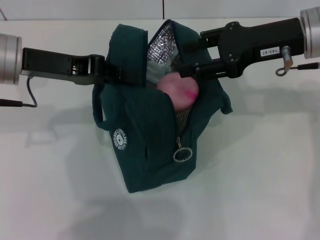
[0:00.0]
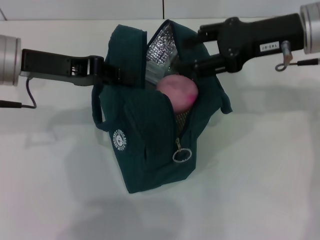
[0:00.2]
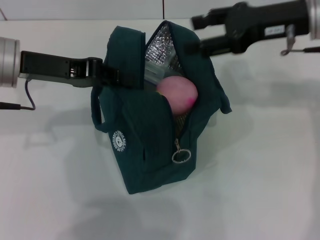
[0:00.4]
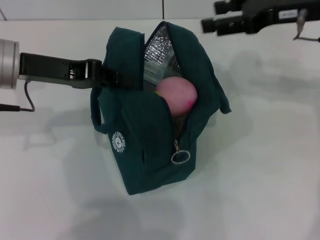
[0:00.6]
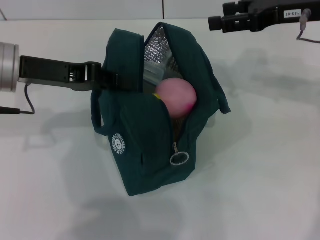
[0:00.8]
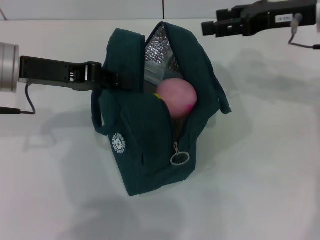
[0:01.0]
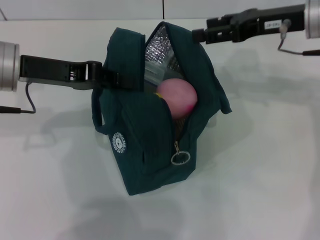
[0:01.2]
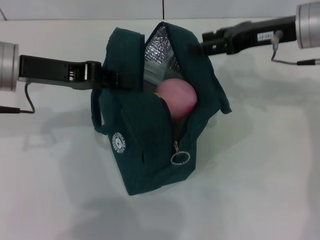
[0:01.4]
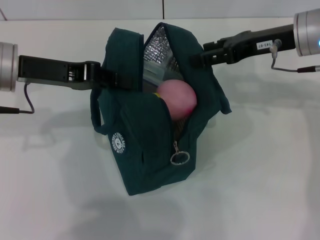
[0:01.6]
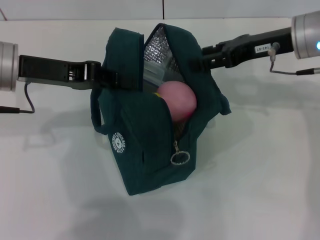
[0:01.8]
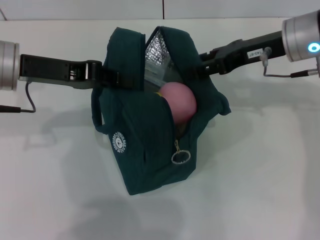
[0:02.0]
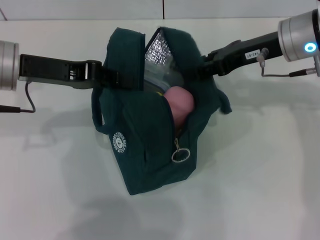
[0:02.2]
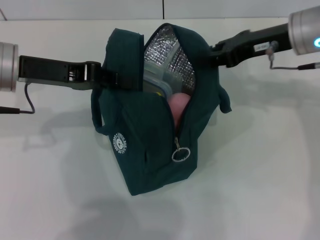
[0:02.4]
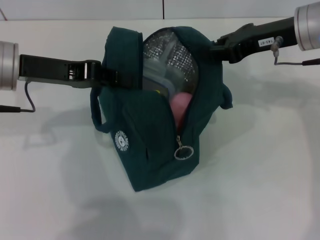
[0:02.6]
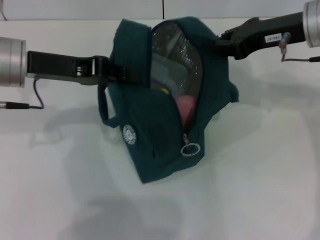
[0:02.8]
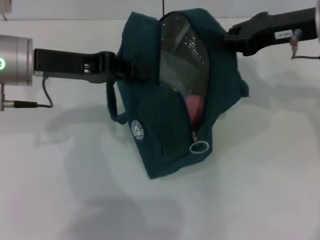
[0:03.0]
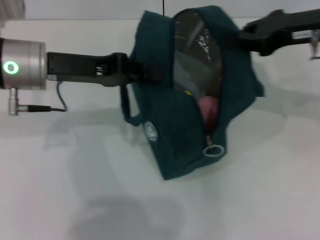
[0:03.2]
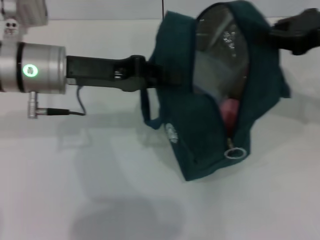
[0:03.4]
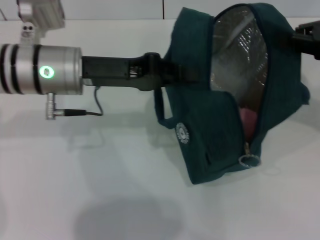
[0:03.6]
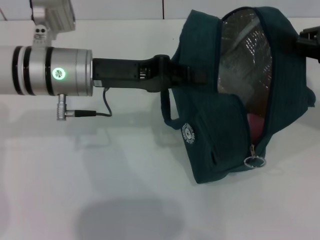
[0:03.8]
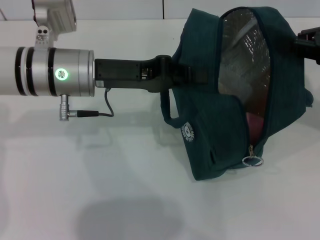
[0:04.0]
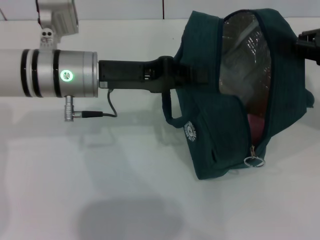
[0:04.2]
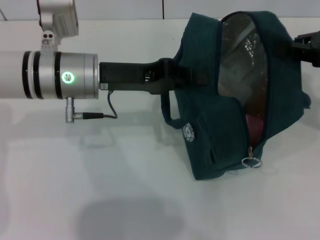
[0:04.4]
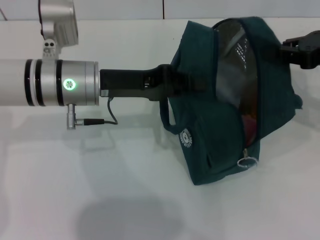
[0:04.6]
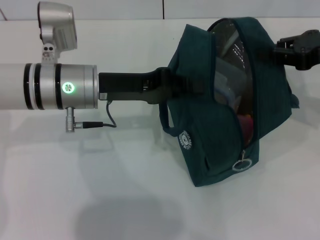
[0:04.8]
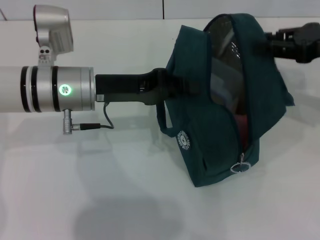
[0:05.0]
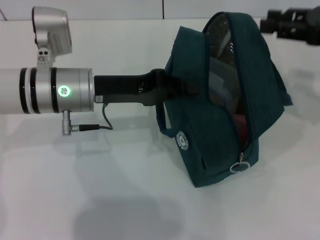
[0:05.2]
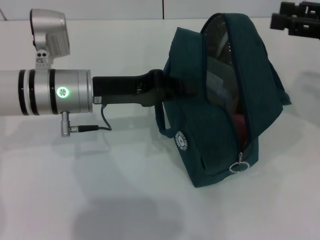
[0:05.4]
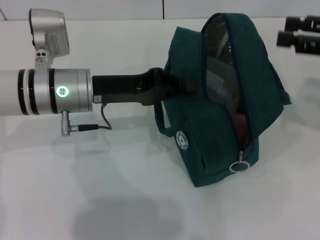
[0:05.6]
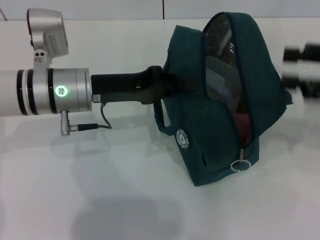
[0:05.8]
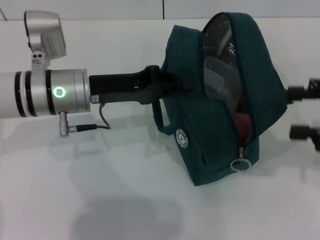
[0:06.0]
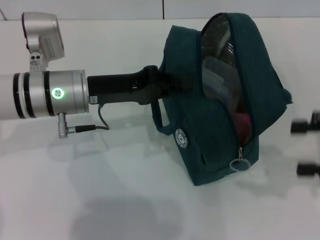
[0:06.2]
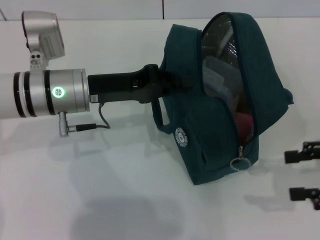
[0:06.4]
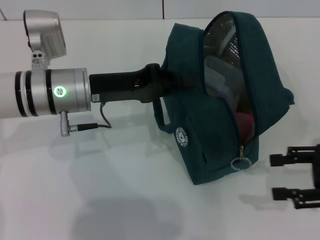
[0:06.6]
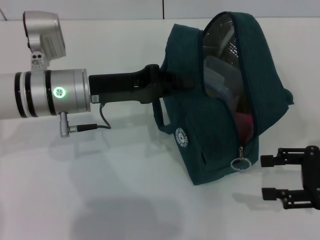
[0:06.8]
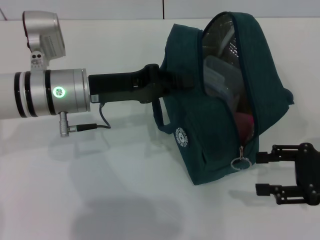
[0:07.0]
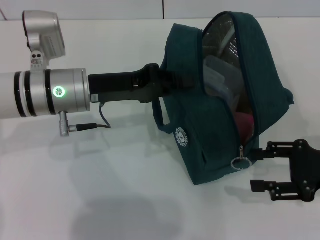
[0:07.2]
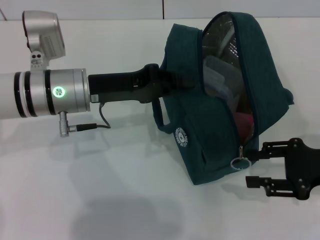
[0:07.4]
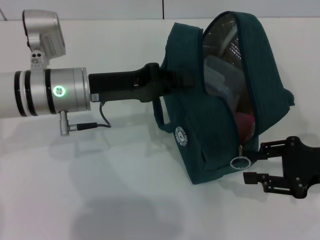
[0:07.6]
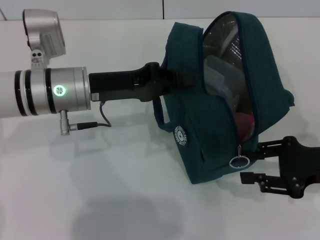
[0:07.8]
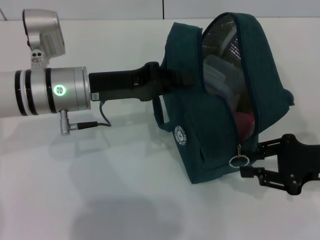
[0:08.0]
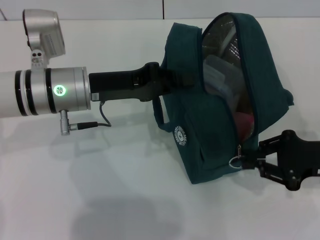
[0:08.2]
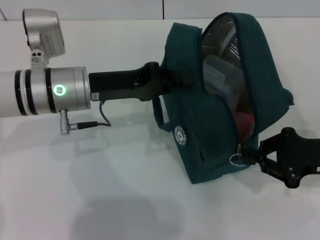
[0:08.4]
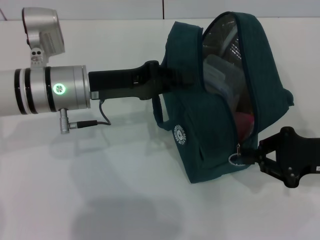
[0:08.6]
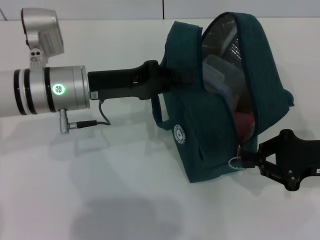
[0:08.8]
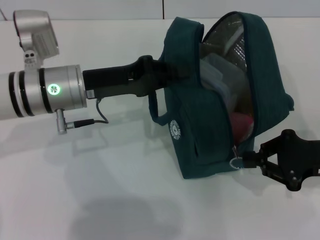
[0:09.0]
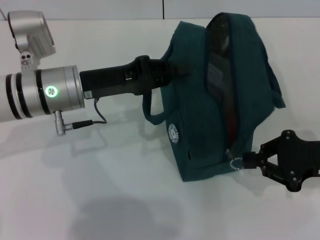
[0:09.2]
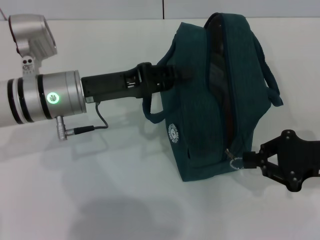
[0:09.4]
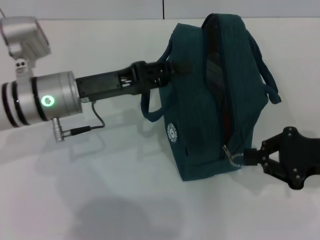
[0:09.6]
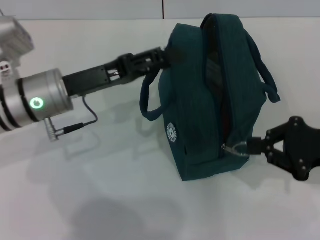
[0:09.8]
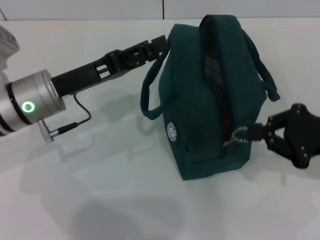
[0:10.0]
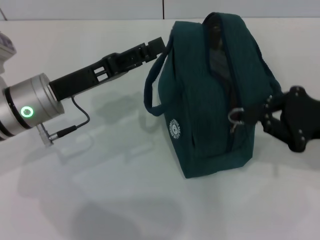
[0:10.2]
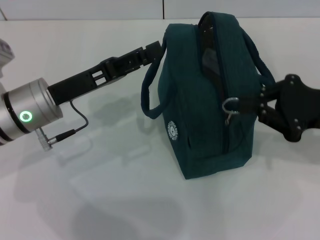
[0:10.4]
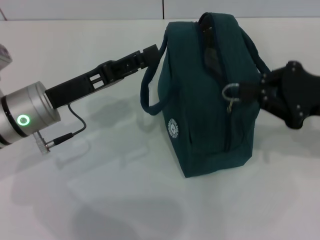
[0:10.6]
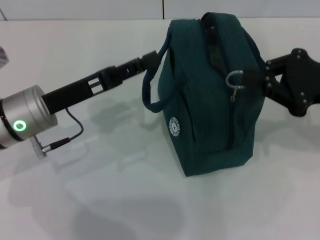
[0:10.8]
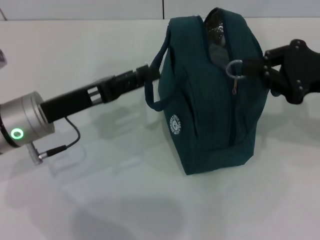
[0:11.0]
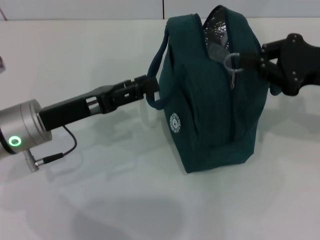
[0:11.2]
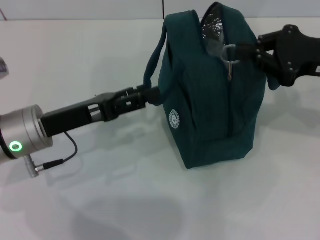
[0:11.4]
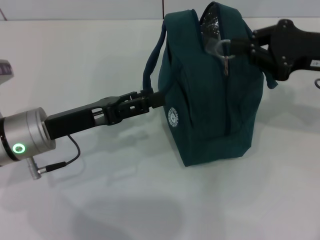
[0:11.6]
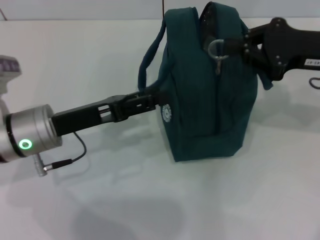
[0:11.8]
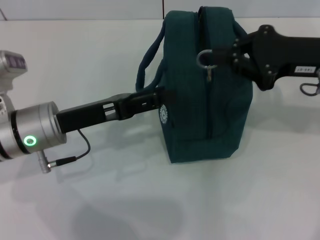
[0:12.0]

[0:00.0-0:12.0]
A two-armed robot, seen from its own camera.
Step, 0:00.6 to 0:05.0: Hold the lunch bag with your right hand.
Step, 0:05.2 to 0:09.8: Hold the lunch bag with your left hand.
0:00.0 to 0:01.6: The right gripper opens.
0:01.6 to 0:03.0: The right gripper closes its fingers.
0:03.0 to 0:04.4: The grippers both shift to the right by approximately 10 cm.
0:04.4 to 0:06.0: The right gripper heads backward, covering approximately 5 cm, and opens.
0:06.0 to 0:07.6: The right gripper is displaced downward by some 10 cm.
0:07.6 to 0:09.0: The right gripper closes.
0:09.0 to 0:10.4: The right gripper changes place by some 5 cm, while the left gripper opens its fingers.
0:10.4 to 0:12.0: The right gripper changes place by approximately 5 cm.

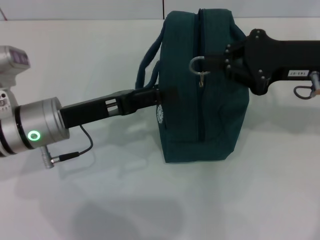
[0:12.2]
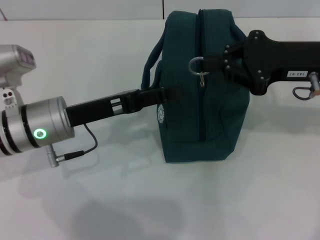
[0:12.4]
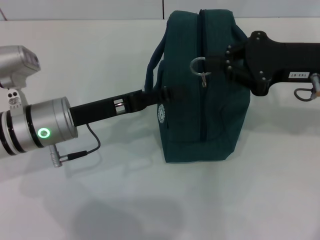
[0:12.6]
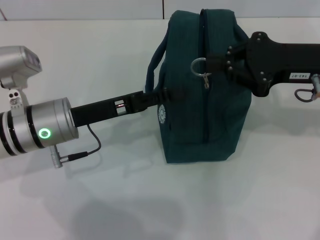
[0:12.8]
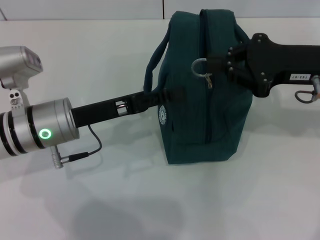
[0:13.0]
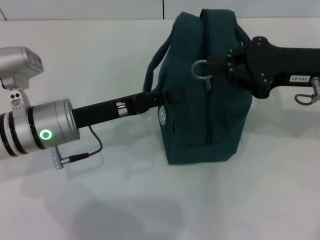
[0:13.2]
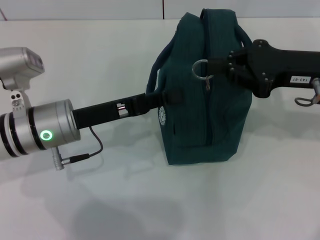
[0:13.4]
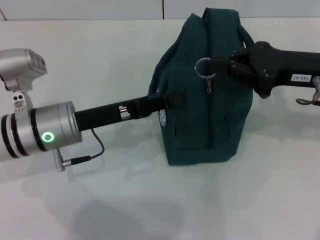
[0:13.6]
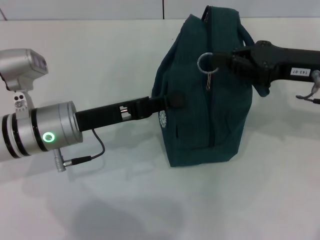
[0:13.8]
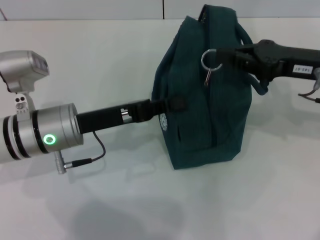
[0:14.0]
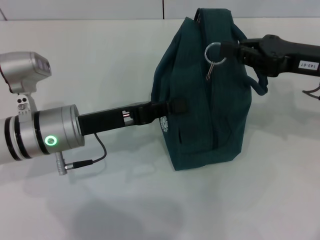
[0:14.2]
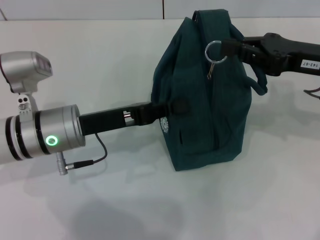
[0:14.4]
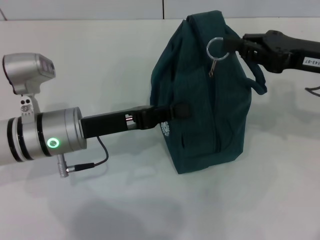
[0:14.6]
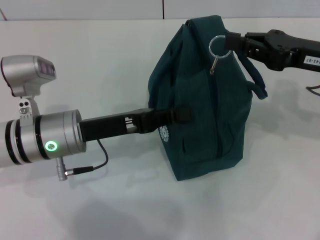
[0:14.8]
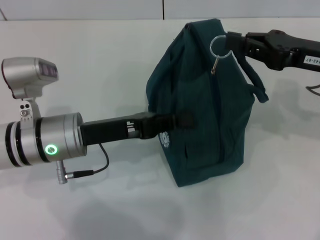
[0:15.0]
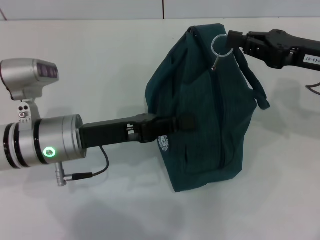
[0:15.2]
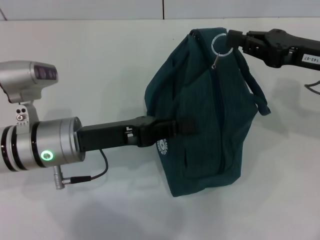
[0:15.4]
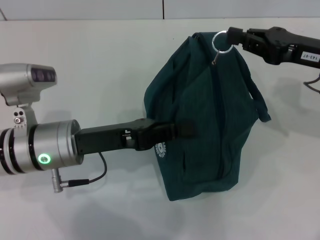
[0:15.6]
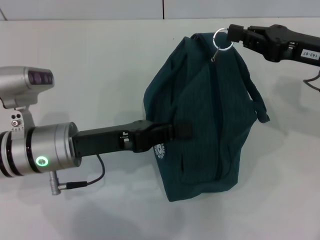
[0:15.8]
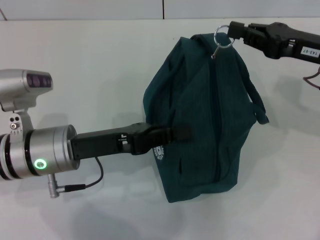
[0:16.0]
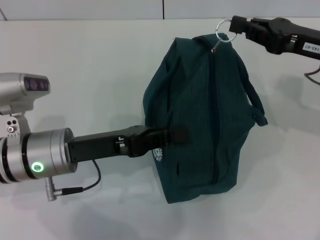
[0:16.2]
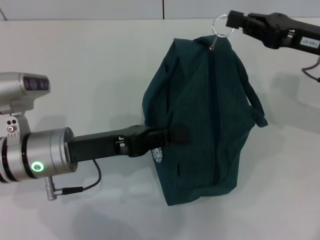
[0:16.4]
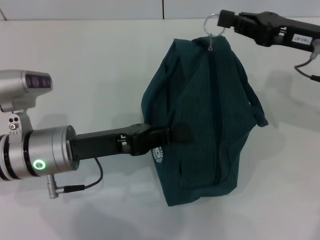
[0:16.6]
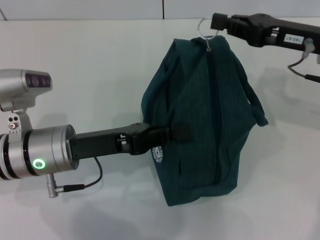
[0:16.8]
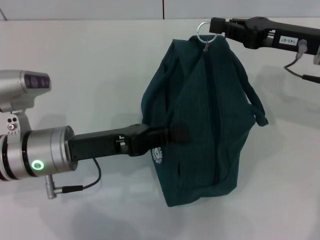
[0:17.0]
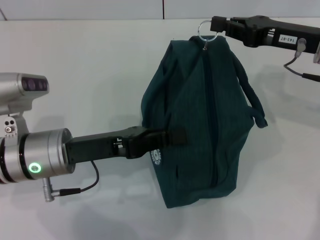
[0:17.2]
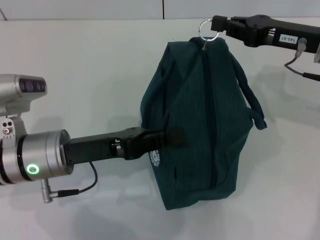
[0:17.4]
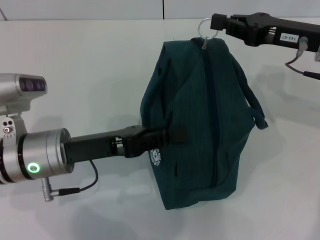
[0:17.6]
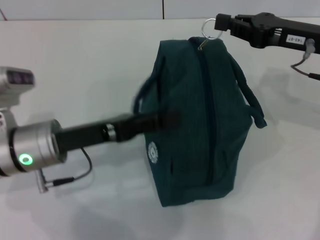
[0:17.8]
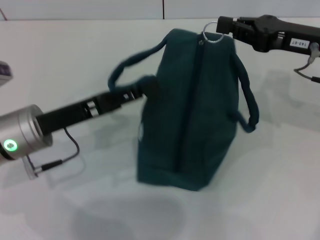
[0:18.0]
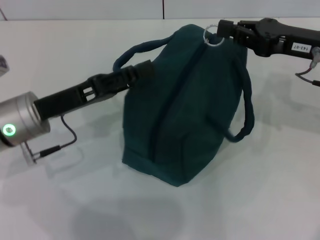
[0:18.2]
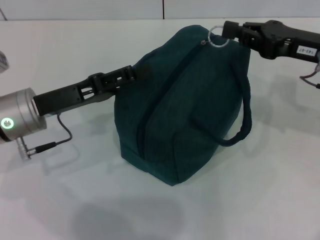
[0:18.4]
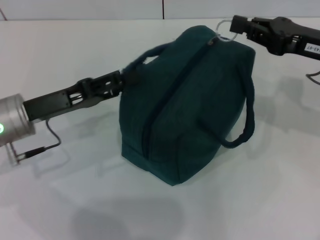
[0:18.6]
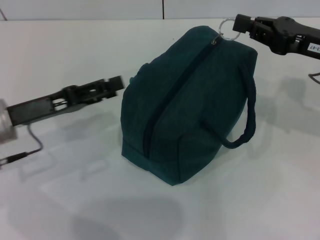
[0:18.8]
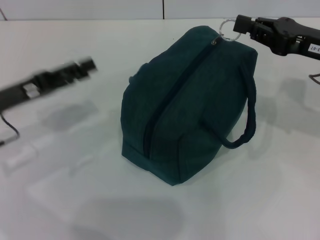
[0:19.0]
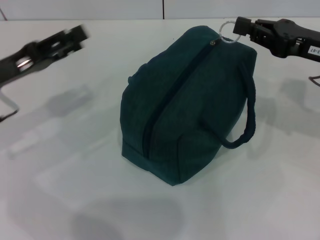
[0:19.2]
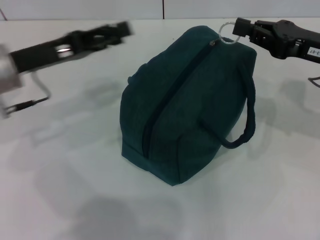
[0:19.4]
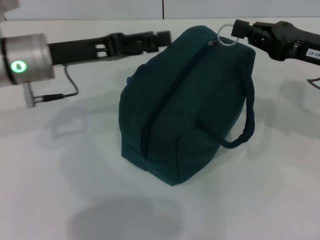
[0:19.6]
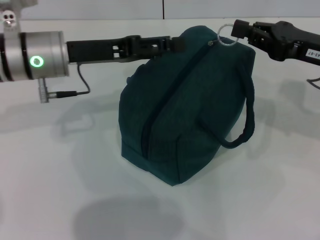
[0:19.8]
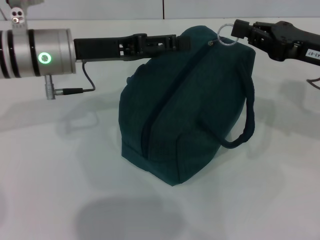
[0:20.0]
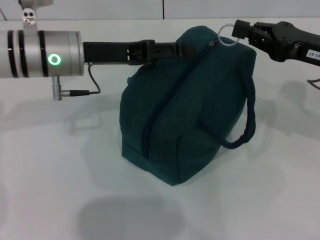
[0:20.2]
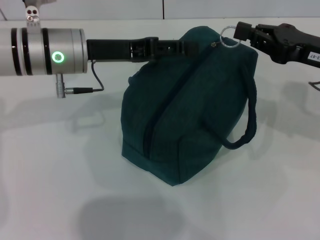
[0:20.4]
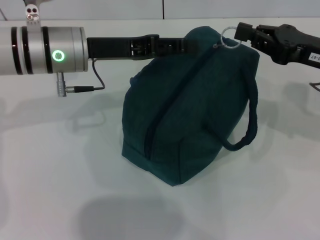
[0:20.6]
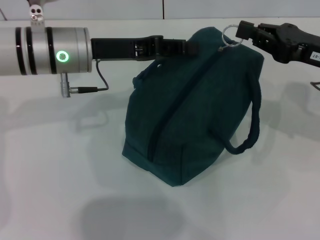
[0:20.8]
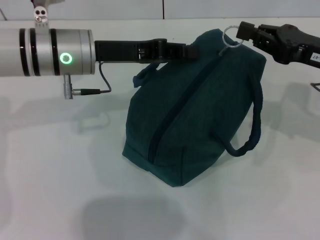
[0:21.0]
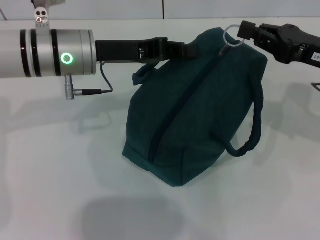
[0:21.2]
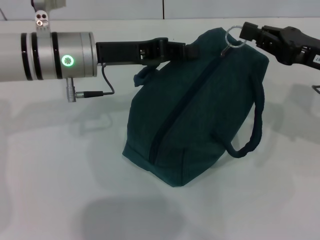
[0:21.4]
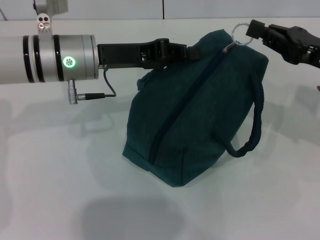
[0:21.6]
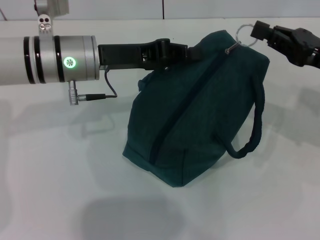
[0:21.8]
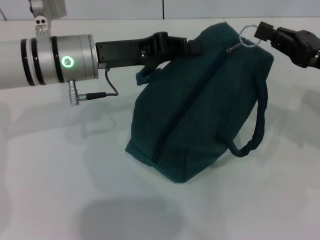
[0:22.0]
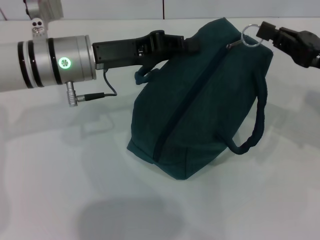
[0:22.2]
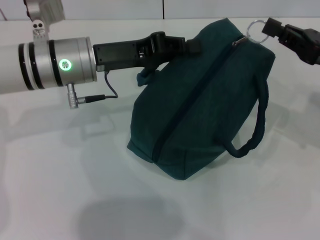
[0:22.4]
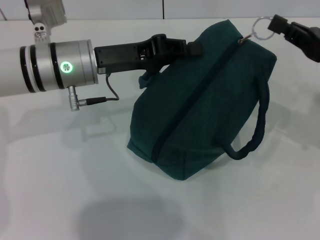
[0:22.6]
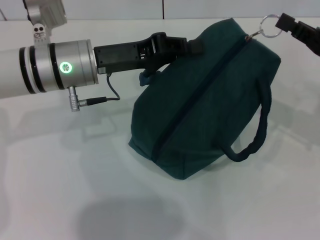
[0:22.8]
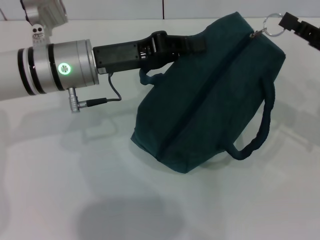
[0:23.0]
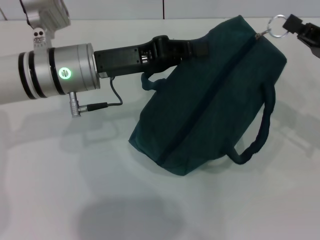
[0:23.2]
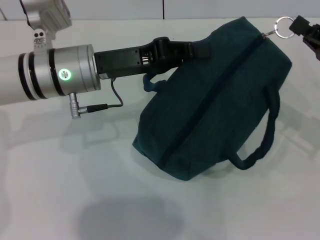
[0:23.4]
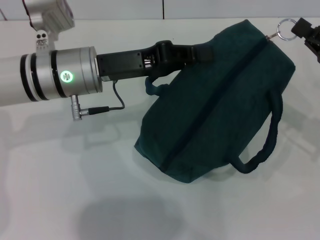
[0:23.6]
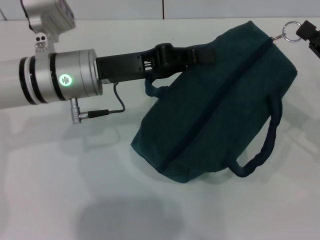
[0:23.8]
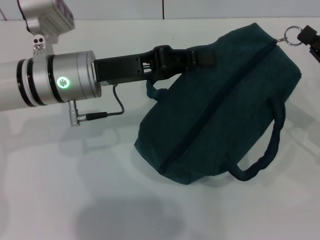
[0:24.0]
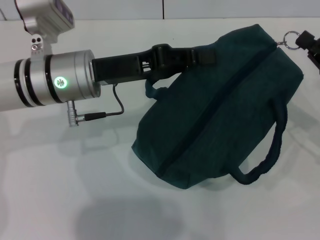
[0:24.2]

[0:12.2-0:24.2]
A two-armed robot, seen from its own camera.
0:12.2 to 0:13.8: The left gripper closes up.
0:16.6 to 0:18.2: The left gripper opens.
0:18.2 to 0:19.8: The left gripper heads forward and upward, covering approximately 10 cm, and moves some 5 cm to the left and comes back.
0:19.8 to 0:21.2: The left gripper closes its fingers.
0:21.2 to 0:22.6: The grippers stay close to where they were, moving slightly.
0:22.6 to 0:24.2: The right gripper ends up about 5 cm from where it was.
